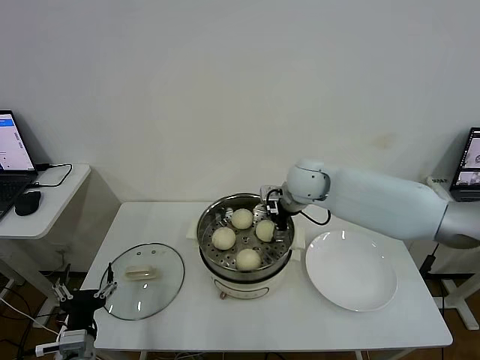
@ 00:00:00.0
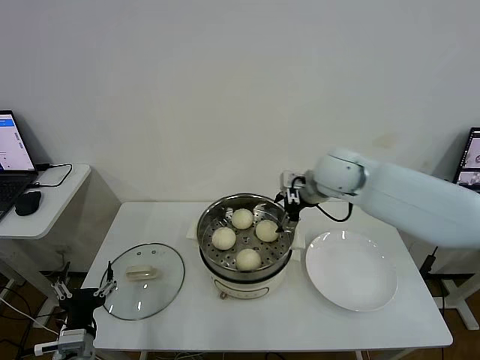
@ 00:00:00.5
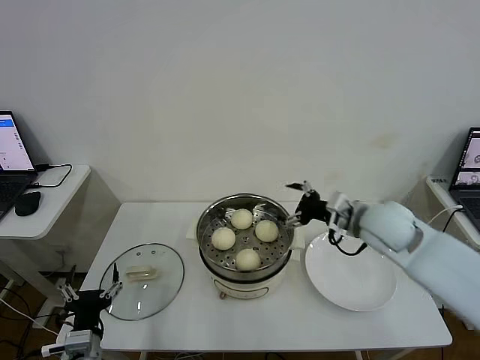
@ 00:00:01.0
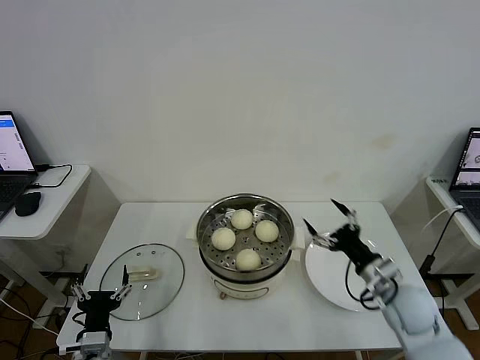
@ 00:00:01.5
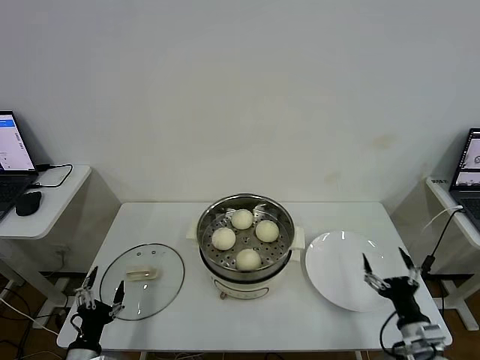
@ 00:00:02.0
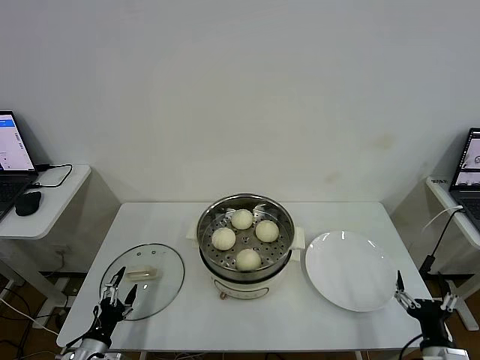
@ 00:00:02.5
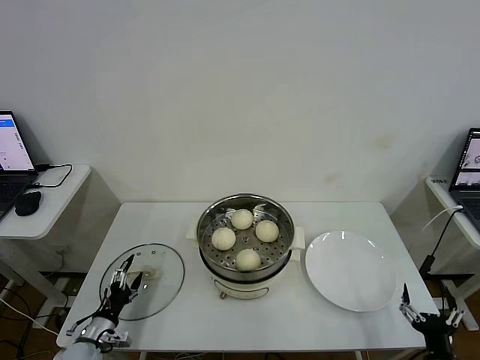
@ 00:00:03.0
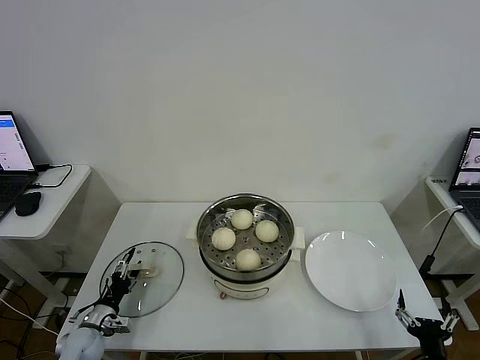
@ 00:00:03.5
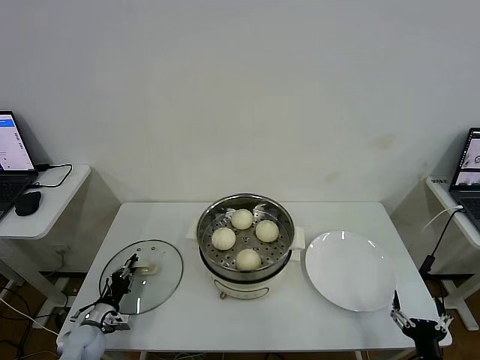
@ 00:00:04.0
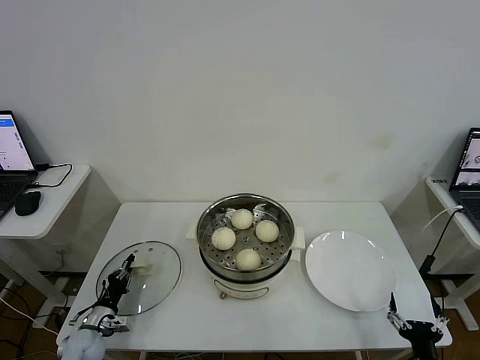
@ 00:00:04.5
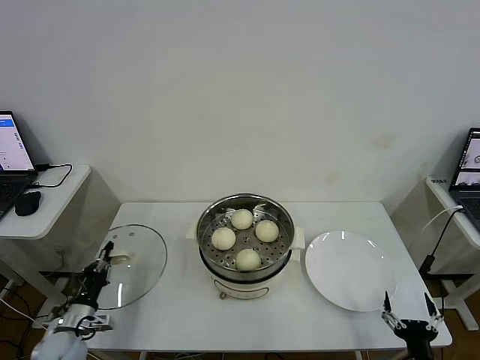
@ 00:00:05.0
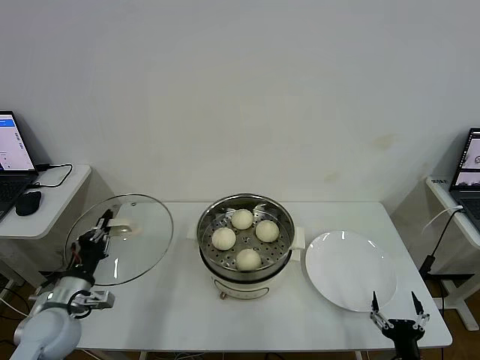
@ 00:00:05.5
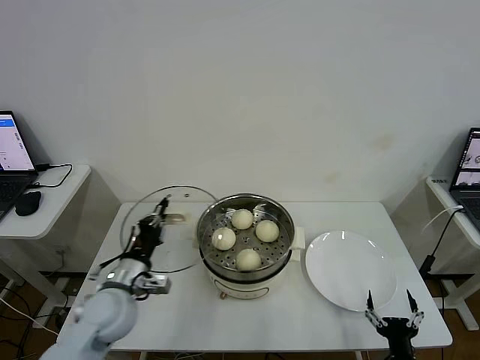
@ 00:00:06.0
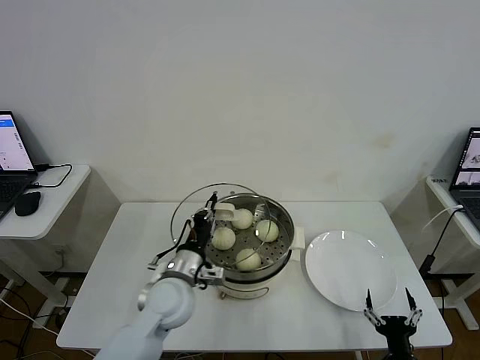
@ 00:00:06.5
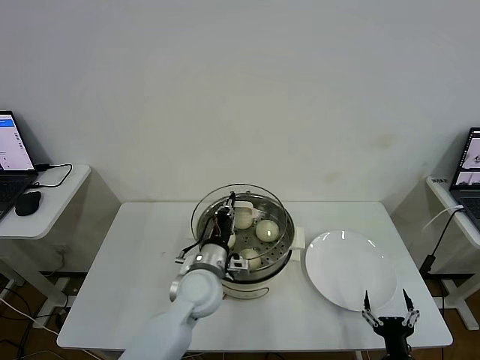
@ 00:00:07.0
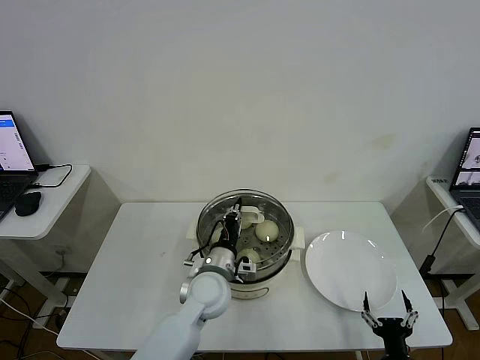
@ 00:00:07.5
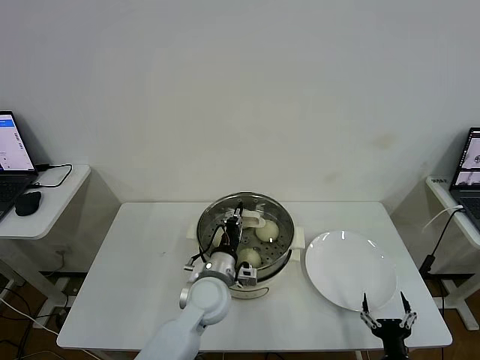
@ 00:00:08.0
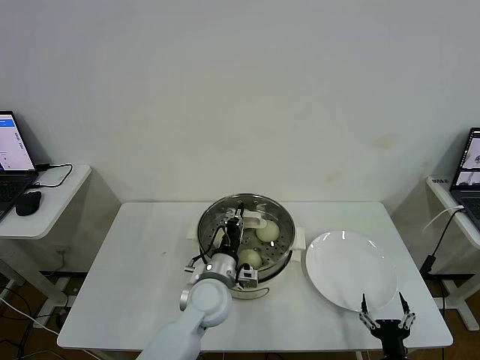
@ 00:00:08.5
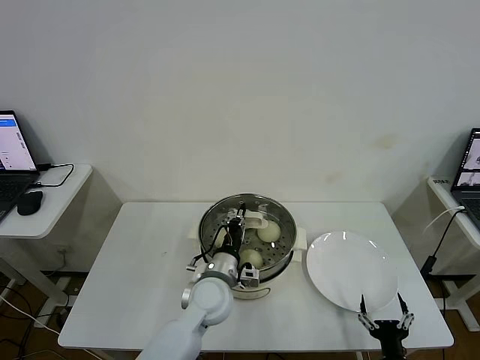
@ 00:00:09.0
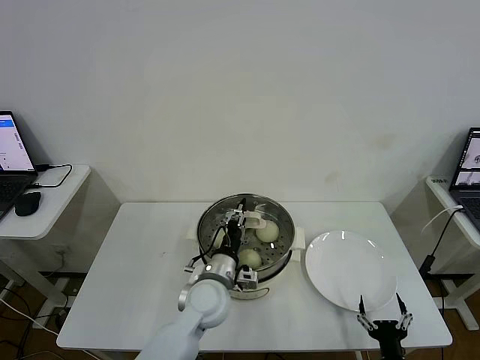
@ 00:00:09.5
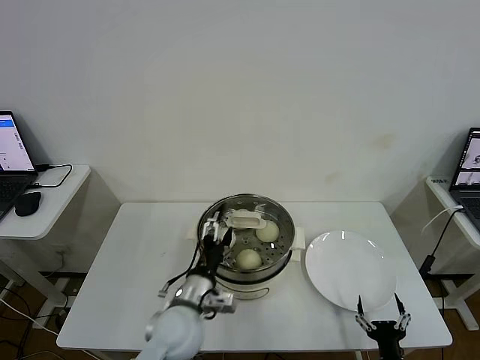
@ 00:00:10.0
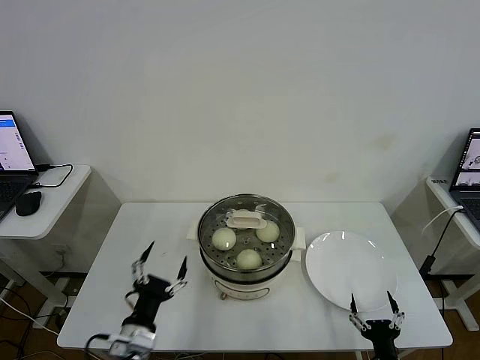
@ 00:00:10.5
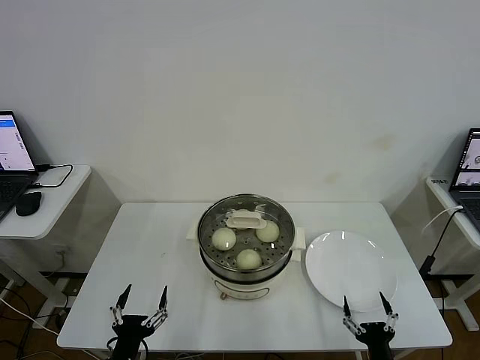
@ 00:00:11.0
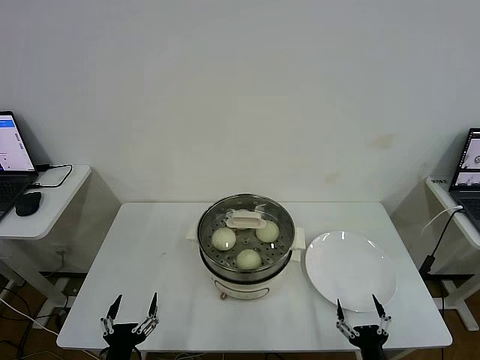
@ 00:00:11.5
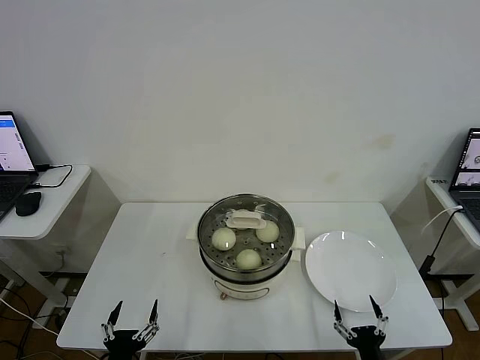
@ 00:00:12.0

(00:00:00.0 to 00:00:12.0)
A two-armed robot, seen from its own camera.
Task of the whole recording: take steamed baozi put them in steamer then cover it.
Step, 00:00:00.5 - 00:00:04.0: Grasp the pot lid with left gripper.
Step, 00:00:05.0 - 00:00:09.5: Place the pot lid on the steamer with left gripper.
00:00:00.0 - 00:00:02.0: The right gripper goes approximately 50 cm backward, to the right and downward, while the left gripper travels downward by approximately 5 cm.
00:00:02.0 - 00:00:04.0: The left gripper heads forward, downward and to the left, covering some 15 cm, and closes. Meanwhile the right gripper travels backward by roughly 5 cm.
00:00:04.0 - 00:00:06.0: The left gripper goes approximately 25 cm upward and to the right.
00:00:06.0 - 00:00:08.0: The left gripper goes some 20 cm to the right.
00:00:08.0 - 00:00:10.0: The left gripper goes approximately 5 cm backward, and opens up.
00:00:10.0 - 00:00:12.0: The left gripper is displaced backward, to the left and downward by some 25 cm.
